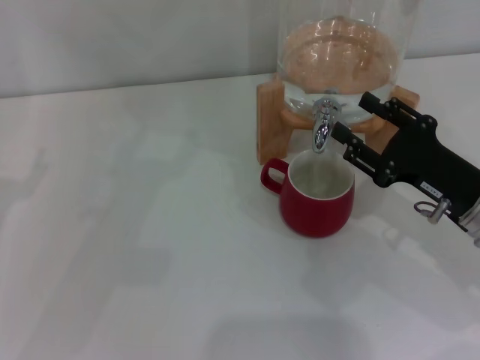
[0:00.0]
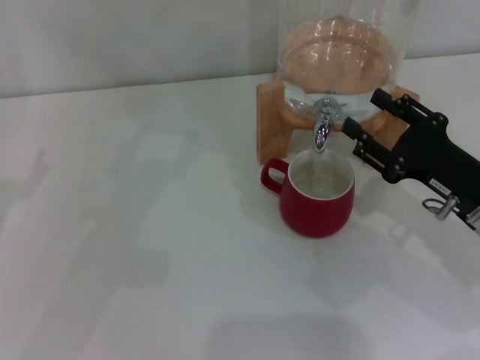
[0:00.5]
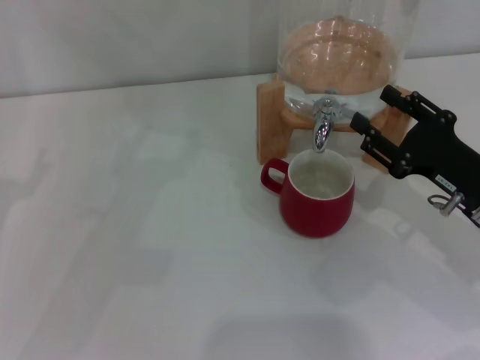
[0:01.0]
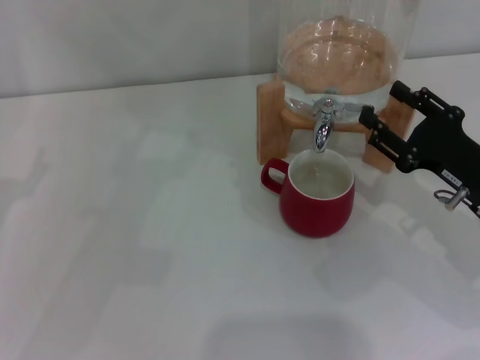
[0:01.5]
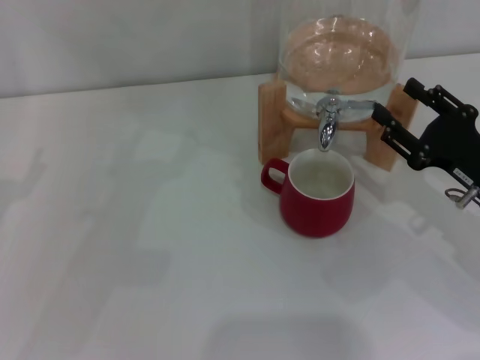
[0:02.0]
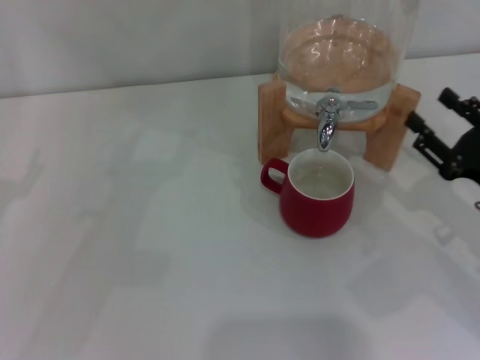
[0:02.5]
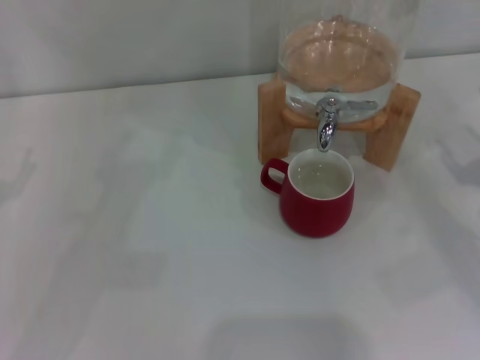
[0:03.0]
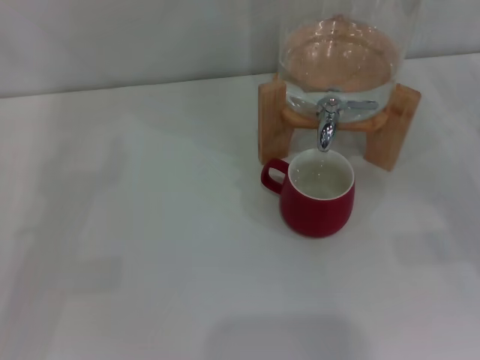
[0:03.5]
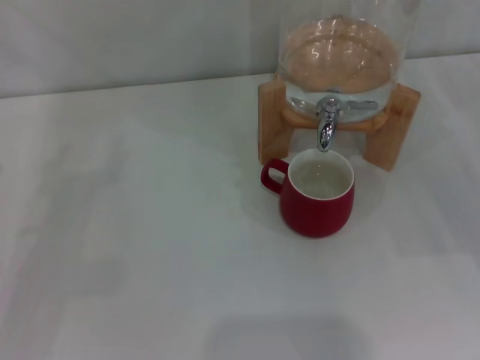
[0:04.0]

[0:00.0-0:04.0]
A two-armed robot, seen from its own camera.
Task of the whole recording: the left gripper pick up the red cup and place it horizontally under the faucet, the right gripper turn on the faucet to fill the cup, and then turn off the faucet.
Step, 0:00.0 to 0:02.0: Close the dispenser valve with the right gripper.
0:00.0 to 0:02.0: The grippers stay close to where they were, moving slightly.
0:02.0 to 0:04.0: The right gripper travels to the right by approximately 10 cm.
